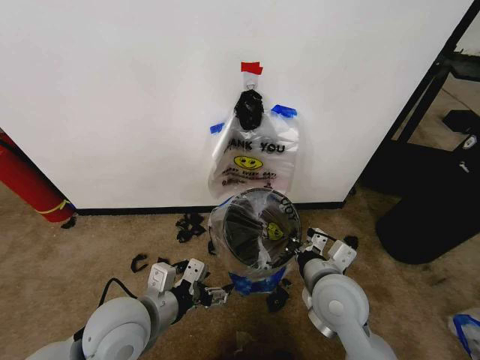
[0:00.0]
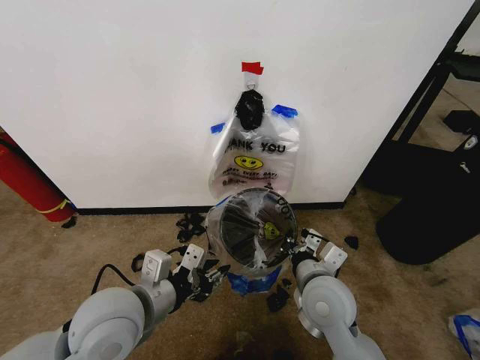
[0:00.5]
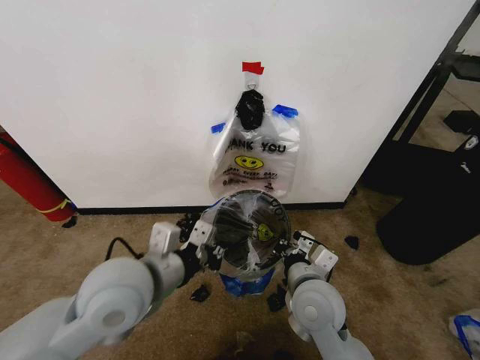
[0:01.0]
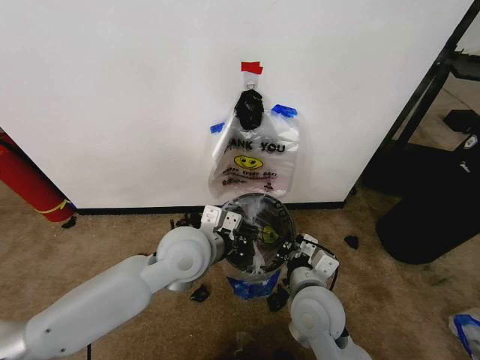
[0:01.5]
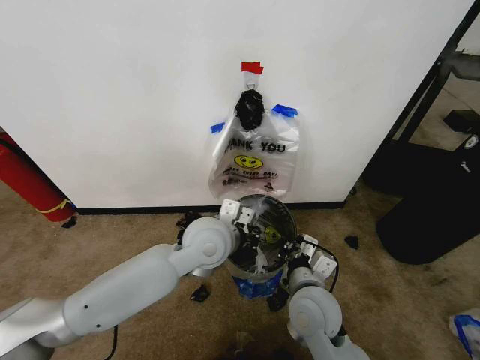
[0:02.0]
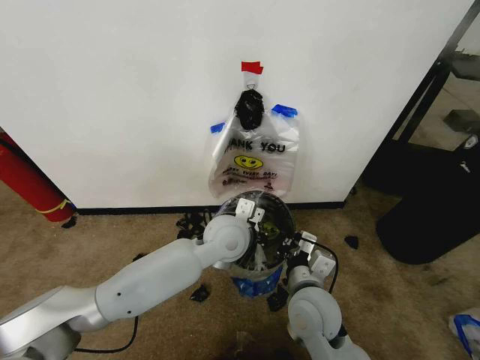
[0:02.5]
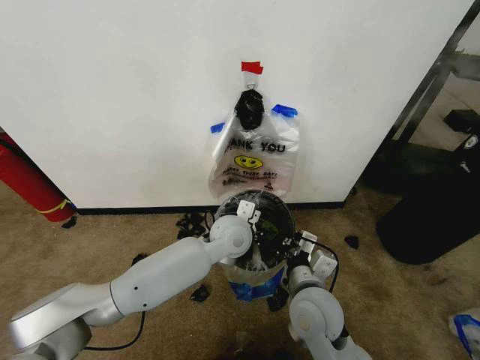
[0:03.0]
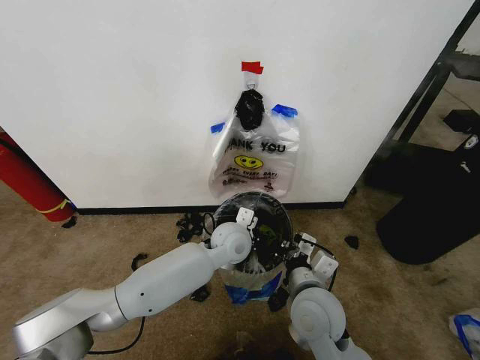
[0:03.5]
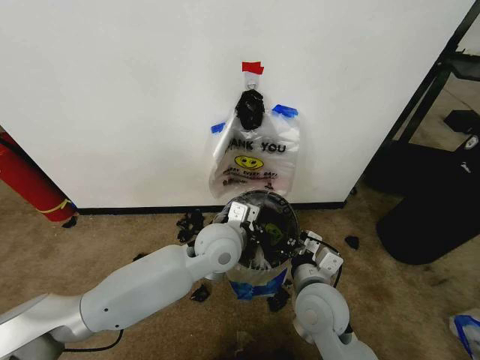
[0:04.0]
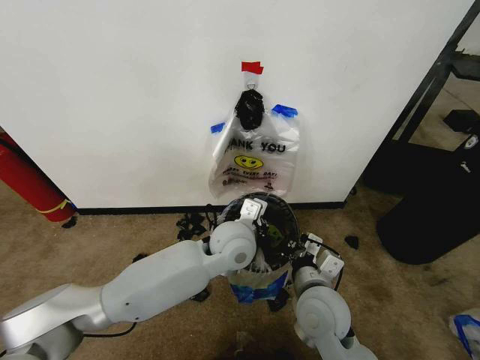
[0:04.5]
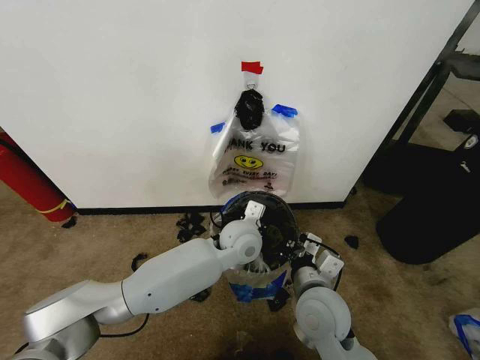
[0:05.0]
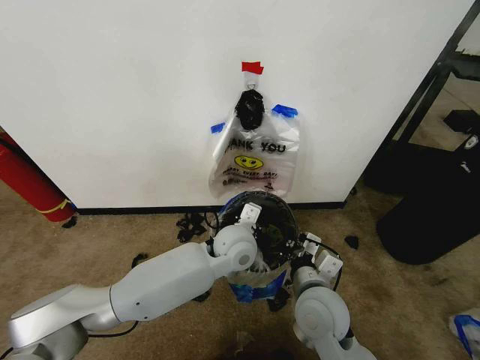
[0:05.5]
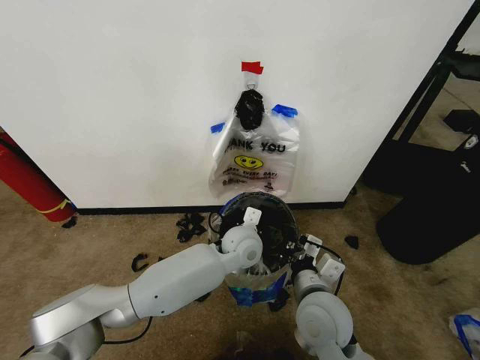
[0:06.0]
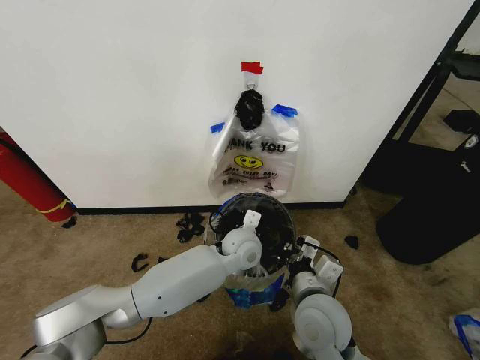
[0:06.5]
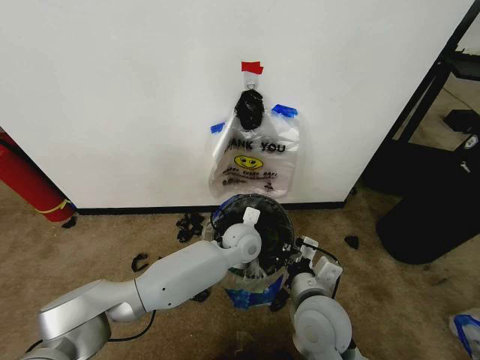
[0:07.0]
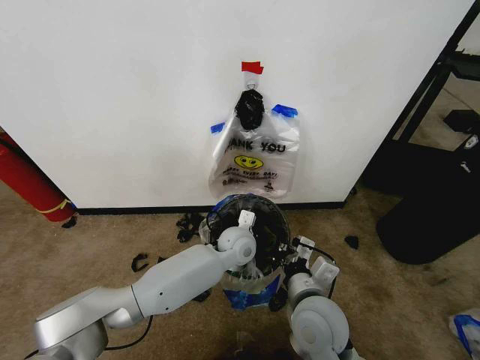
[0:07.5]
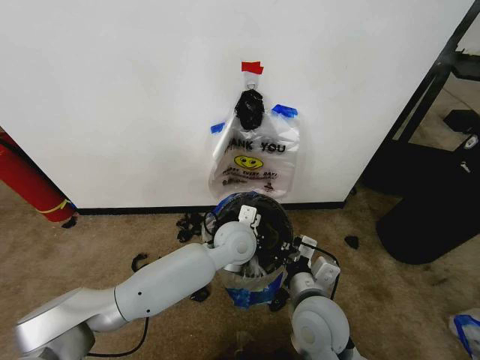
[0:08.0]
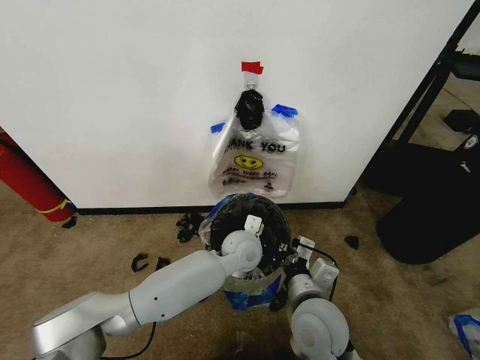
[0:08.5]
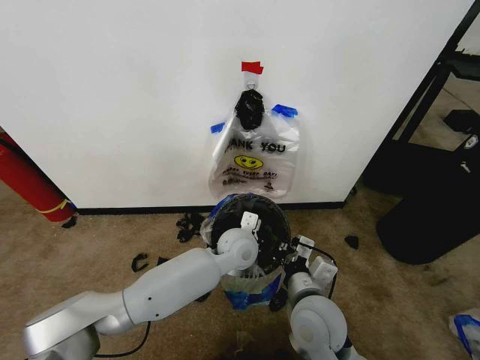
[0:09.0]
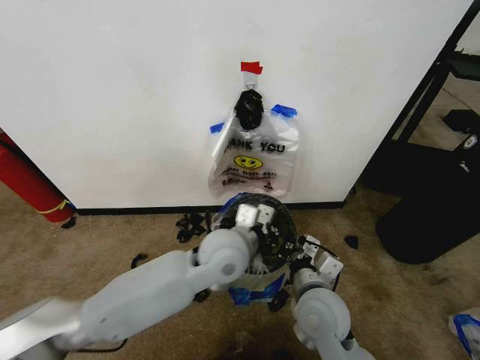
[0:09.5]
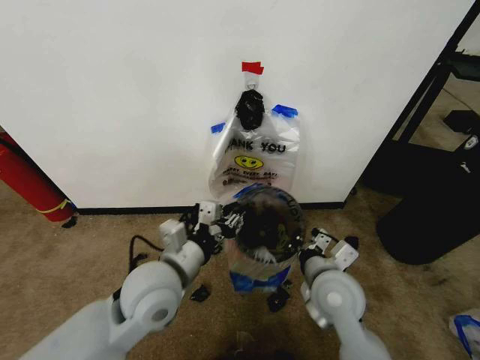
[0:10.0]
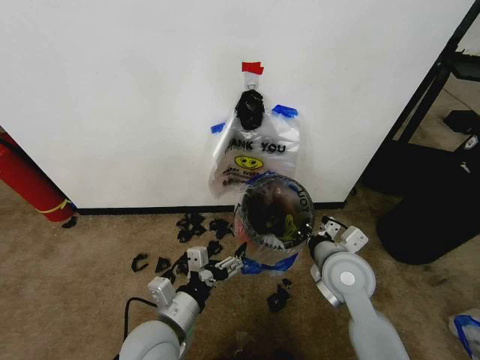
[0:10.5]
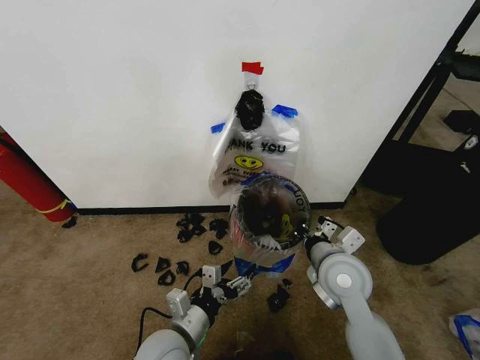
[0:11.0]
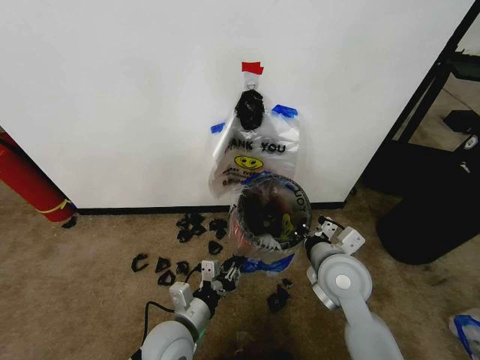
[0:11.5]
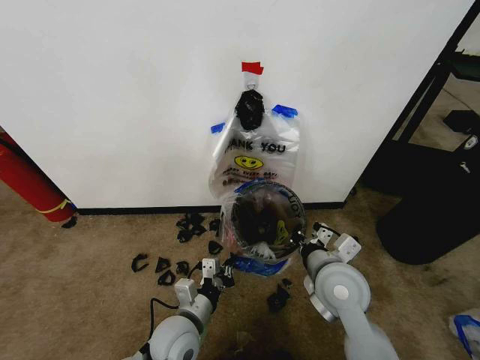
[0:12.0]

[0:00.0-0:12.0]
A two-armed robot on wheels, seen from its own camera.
Task of the whole recording: Pick up the garbage bag from the wall and place it over the trash bin.
0:00.0 to 0:02.0: The left gripper heads forward and to the right, covering roughly 20 cm, and closes its fingers; the right gripper shifts by approximately 5 cm.
0:04.0 to 0:06.0: The left gripper goes roughly 10 cm downward and to the right.
0:06.0 to 0:08.0: The grippers make only small movements.
0:08.0 to 0:10.0: The left gripper heads backward and to the left, covering some 20 cm, and opens up, while the right gripper changes place by roughly 5 cm.
0:10.0 to 0:12.0: The left gripper travels downward by approximately 15 cm, and closes up.

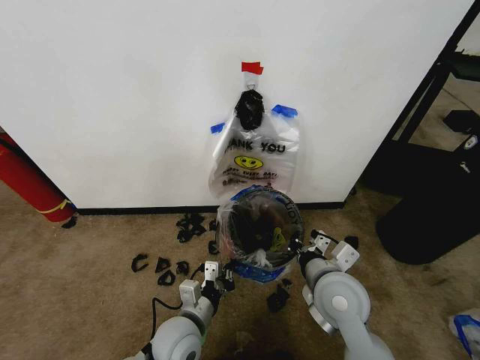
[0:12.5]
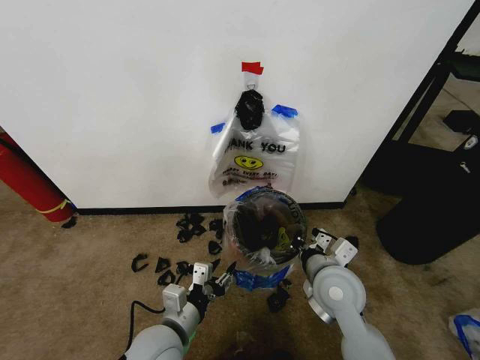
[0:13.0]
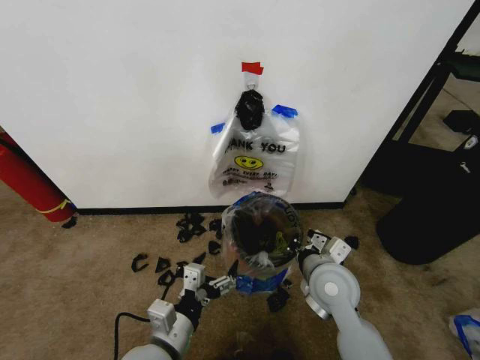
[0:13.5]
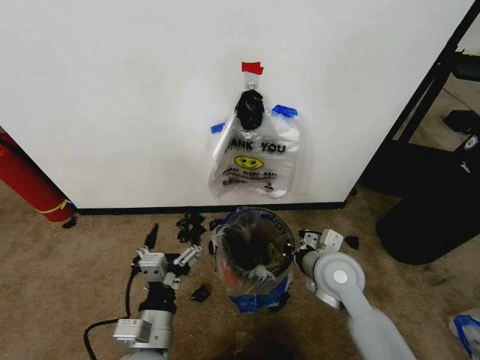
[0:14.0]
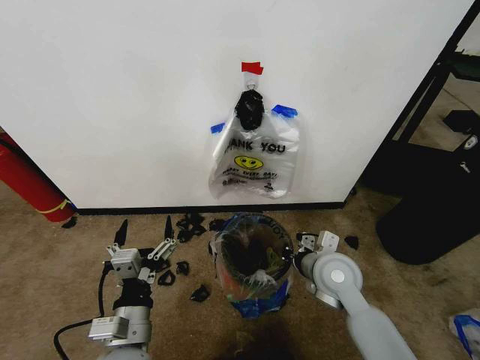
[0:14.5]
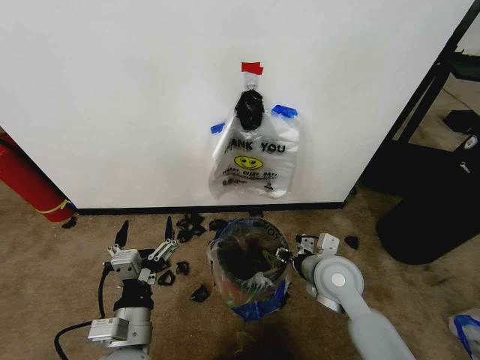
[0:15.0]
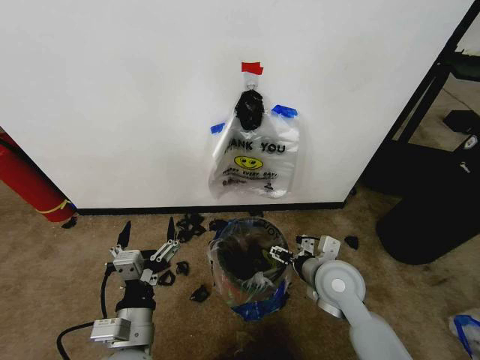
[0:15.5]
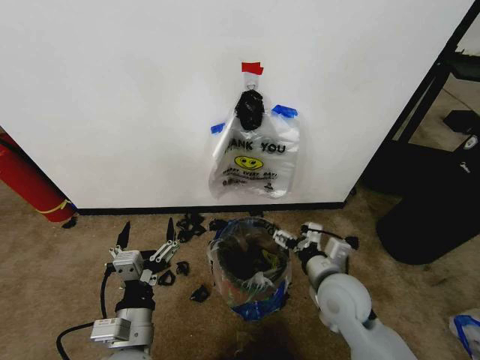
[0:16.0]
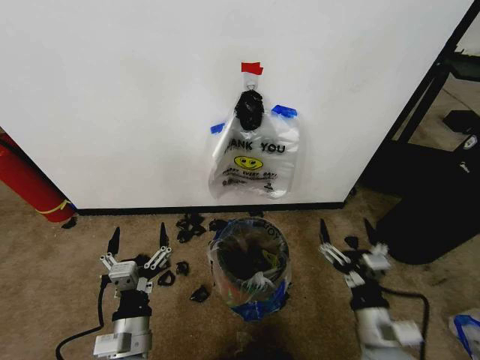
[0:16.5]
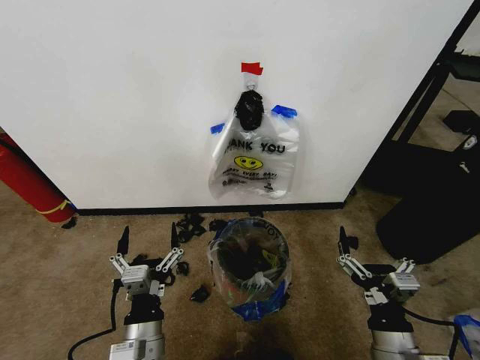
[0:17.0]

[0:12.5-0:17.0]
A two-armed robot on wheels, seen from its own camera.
Task of the whole recording: Pick up the garbage bag from the wall and place it over the trash bin.
0:12.5 to 0:14.5: The left gripper shifts roughly 10 cm upward, backward and to the left, and opens. Meanwhile the right gripper shifts some 5 cm forward.
0:14.5 to 0:17.0: The right gripper travels backward by roughly 20 cm, and opens up.
